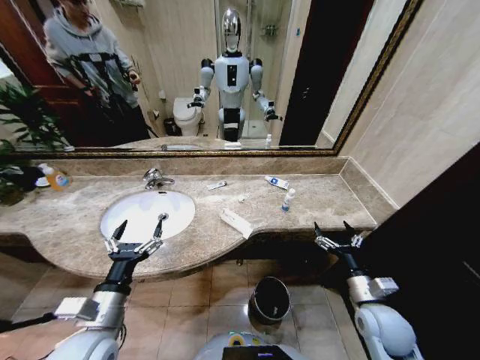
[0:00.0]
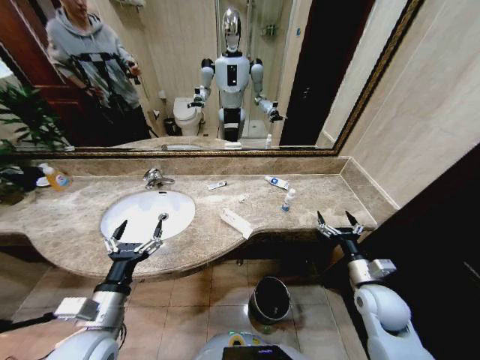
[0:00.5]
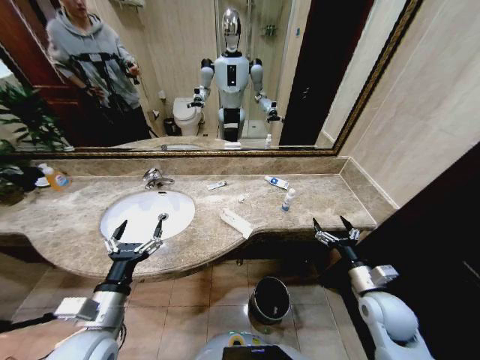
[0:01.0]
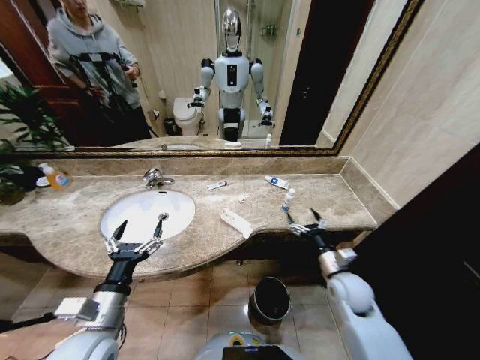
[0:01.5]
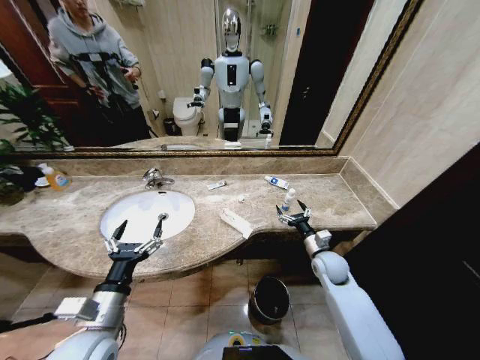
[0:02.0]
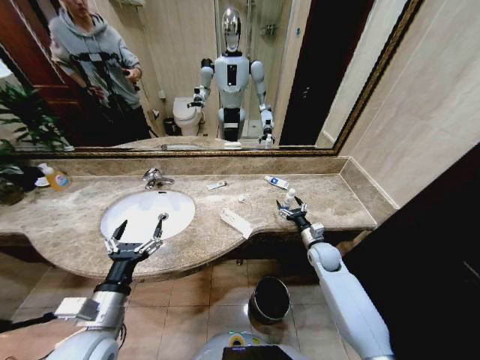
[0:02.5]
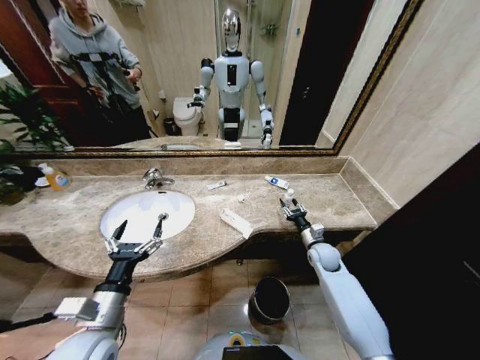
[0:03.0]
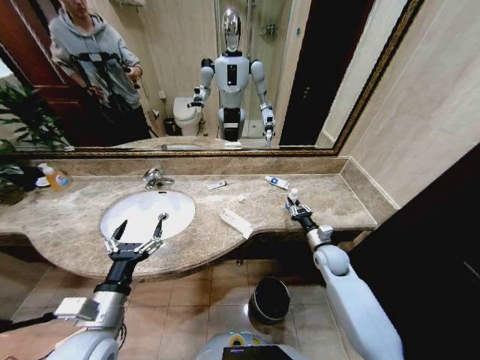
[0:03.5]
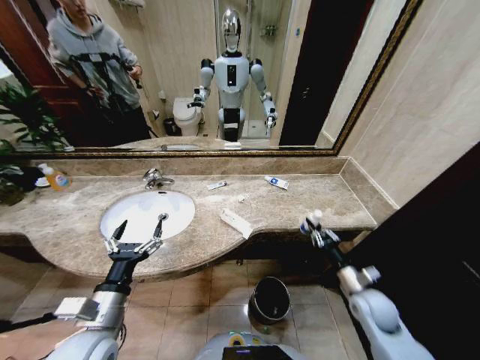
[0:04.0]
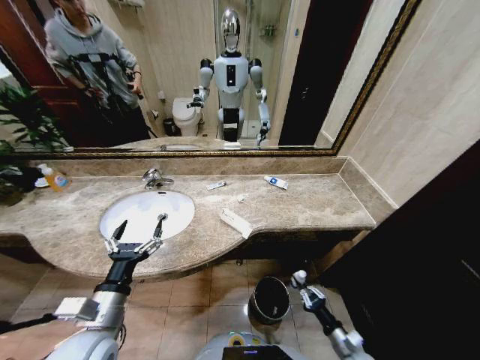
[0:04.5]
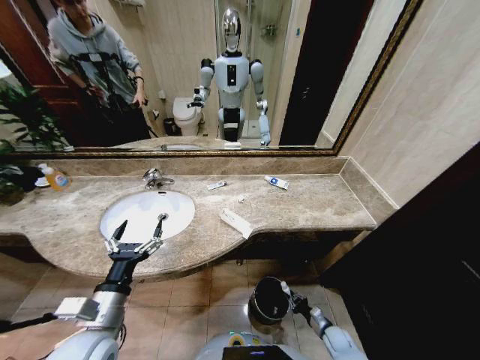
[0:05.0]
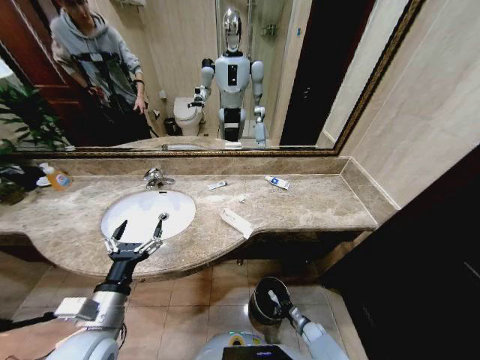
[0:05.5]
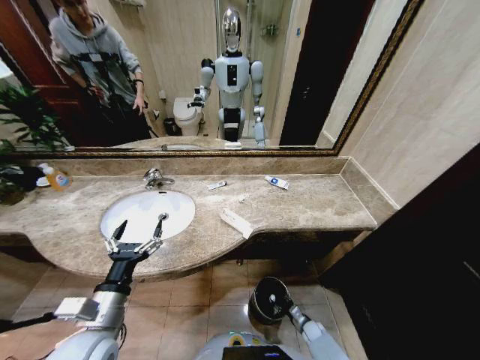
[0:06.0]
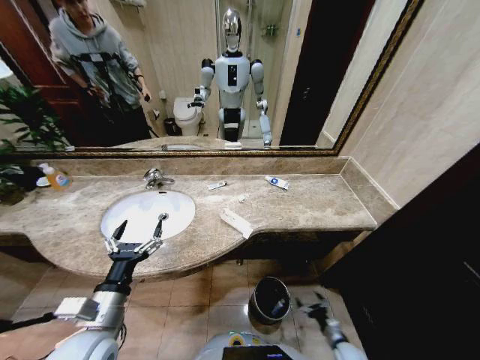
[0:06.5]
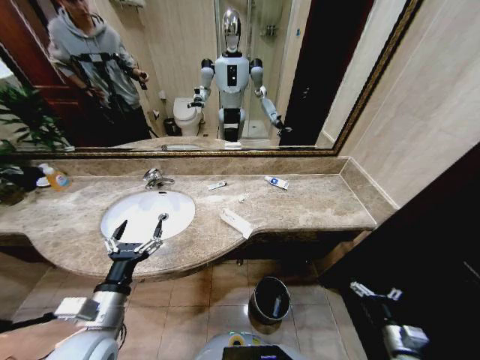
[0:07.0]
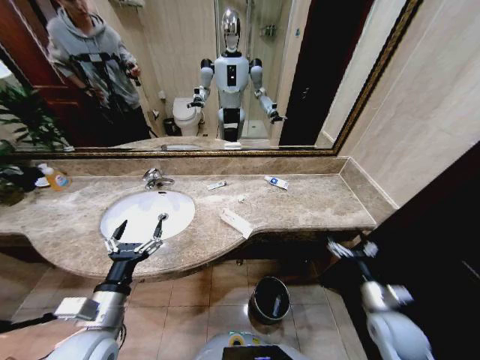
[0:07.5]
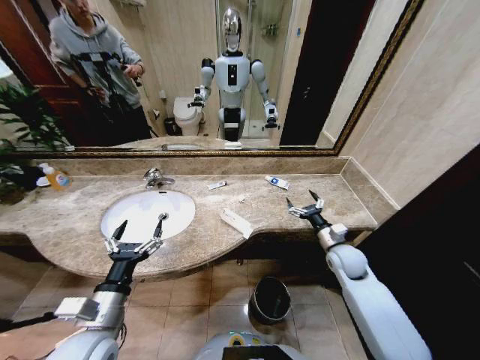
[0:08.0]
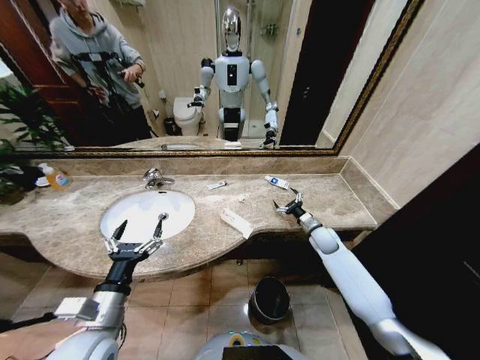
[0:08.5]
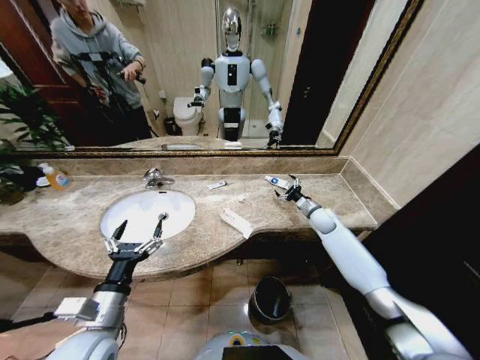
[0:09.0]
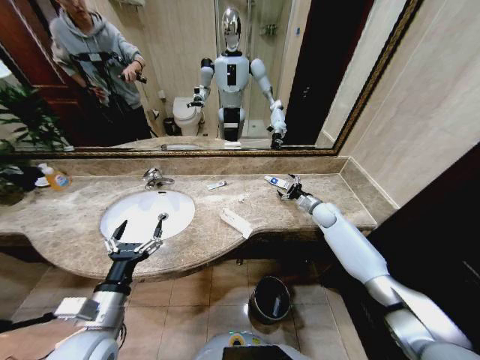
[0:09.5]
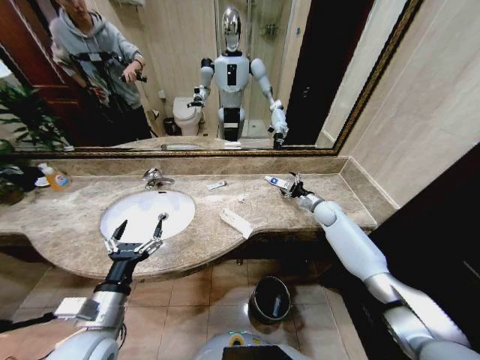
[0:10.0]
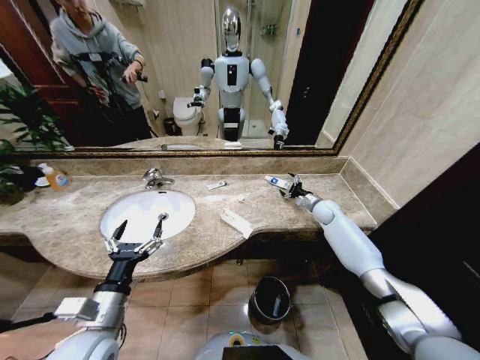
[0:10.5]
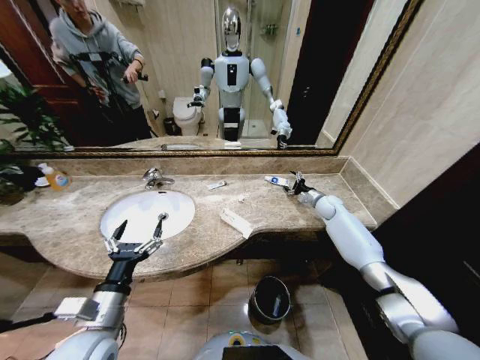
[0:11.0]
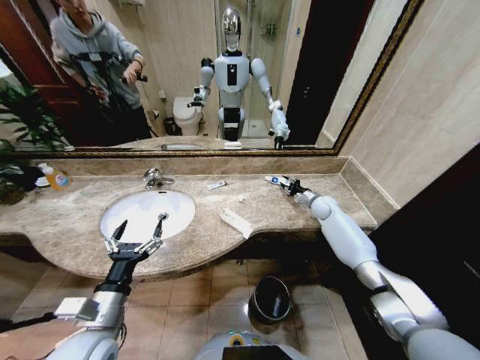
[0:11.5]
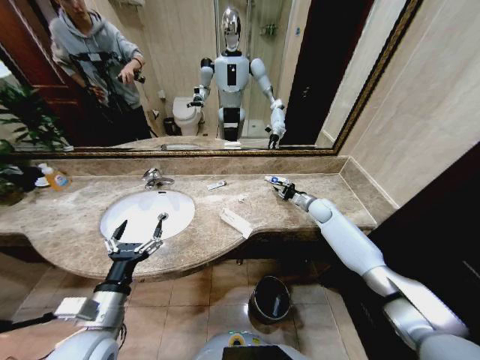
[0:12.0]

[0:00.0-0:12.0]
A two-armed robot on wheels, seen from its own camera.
Task of the whole recording: Pick up the trash from the sink and place it in the trash bin.
0:02.0 to 0:04.0: The right gripper goes about 15 cm backward and to the right, and closes.
0:04.0 to 0:06.0: The right gripper is displaced downward by approximately 35 cm, and opens.
0:06.0 to 0:08.0: The right gripper shifts some 40 cm upward, and opens.
0:08.0 to 0:10.0: The right gripper shifts some 20 cm forward.
0:10.0 to 0:12.0: The right gripper closes up.

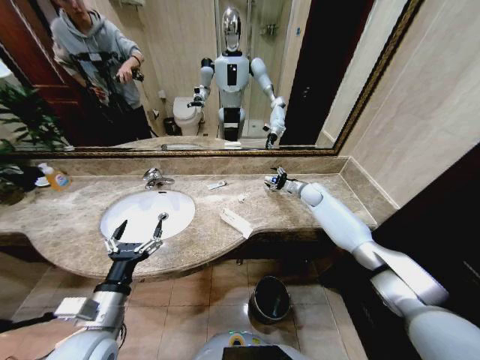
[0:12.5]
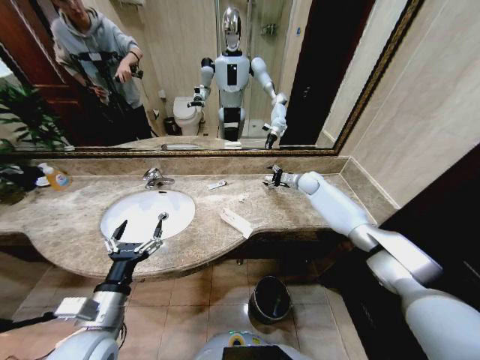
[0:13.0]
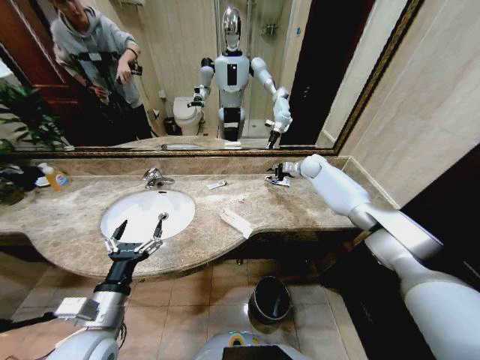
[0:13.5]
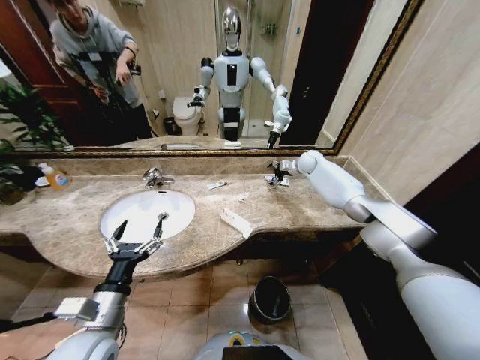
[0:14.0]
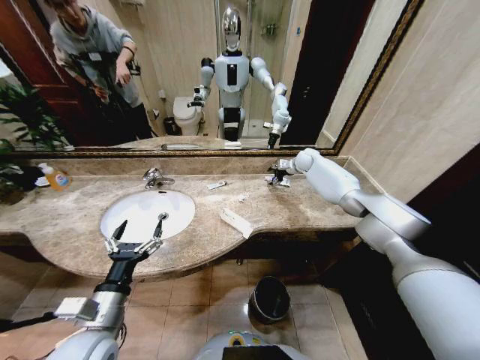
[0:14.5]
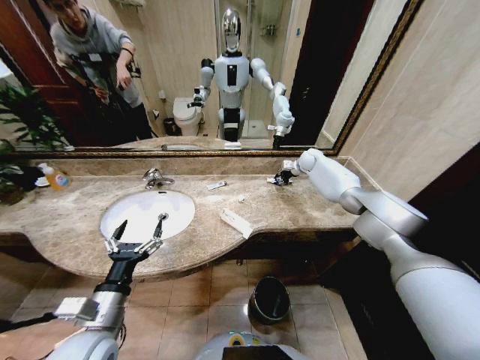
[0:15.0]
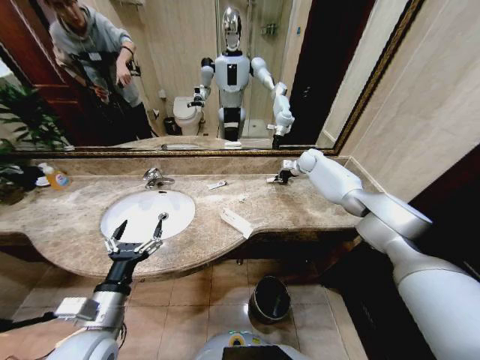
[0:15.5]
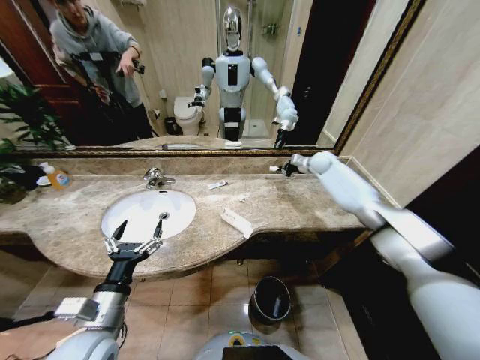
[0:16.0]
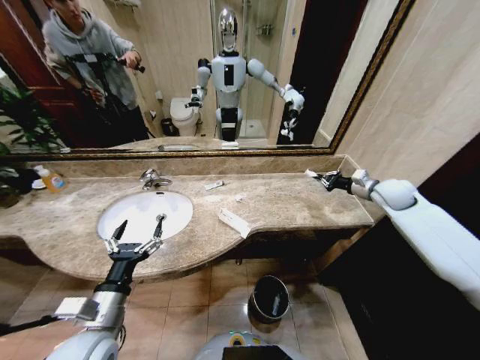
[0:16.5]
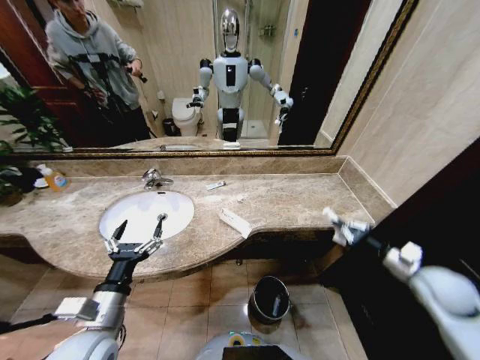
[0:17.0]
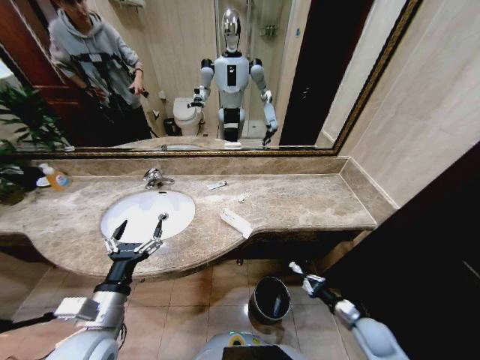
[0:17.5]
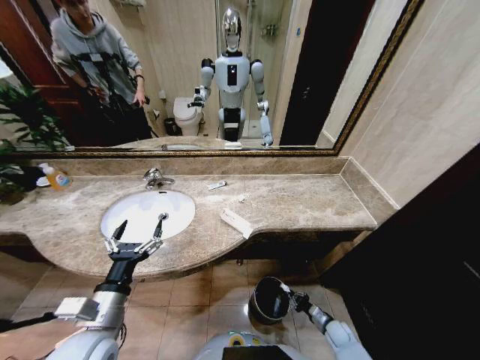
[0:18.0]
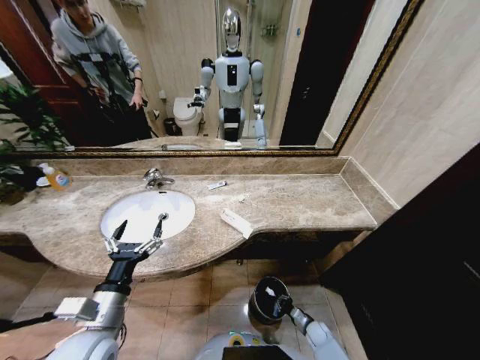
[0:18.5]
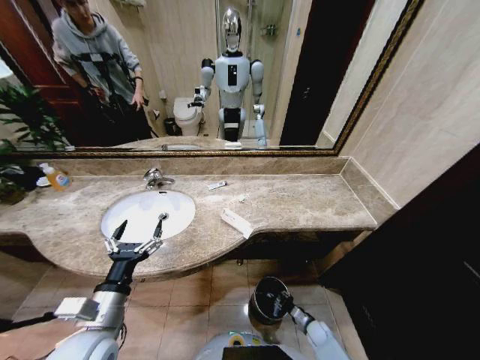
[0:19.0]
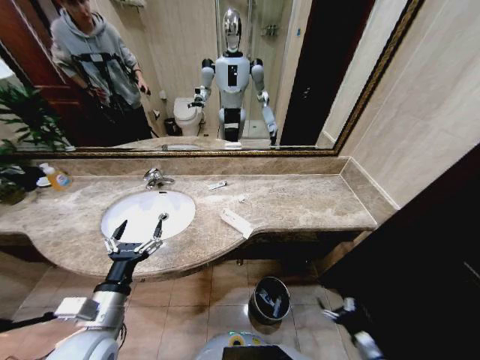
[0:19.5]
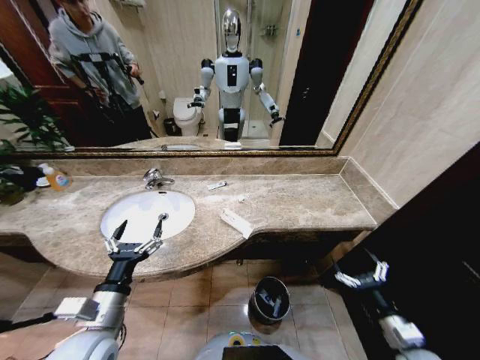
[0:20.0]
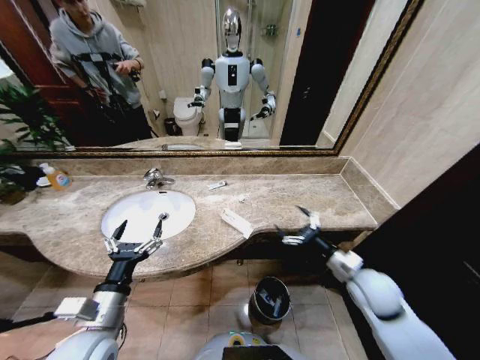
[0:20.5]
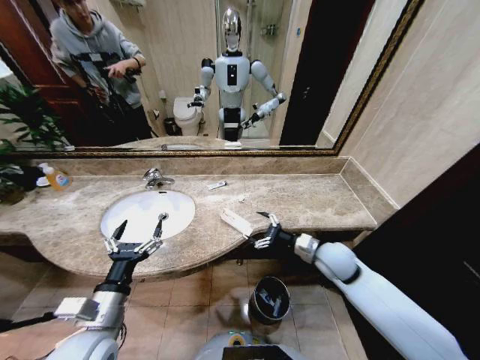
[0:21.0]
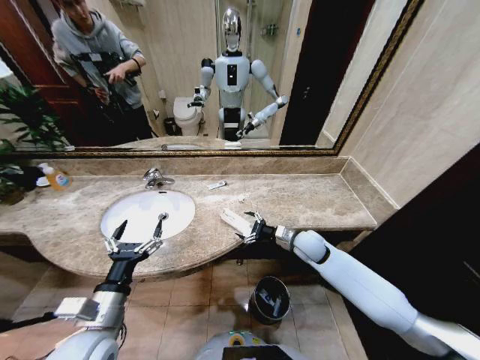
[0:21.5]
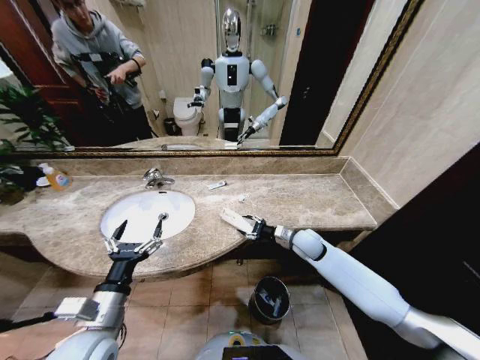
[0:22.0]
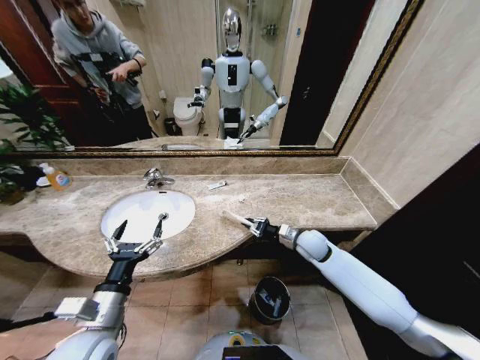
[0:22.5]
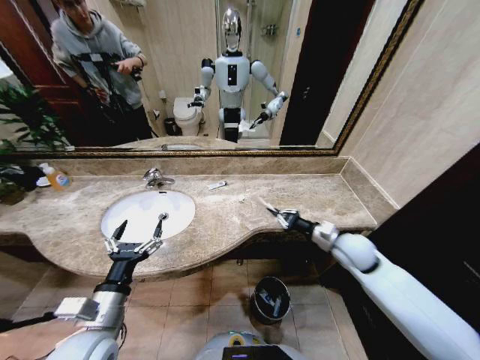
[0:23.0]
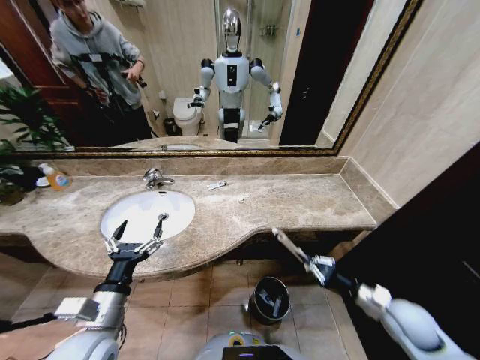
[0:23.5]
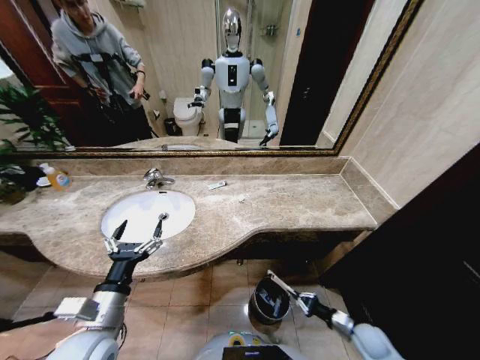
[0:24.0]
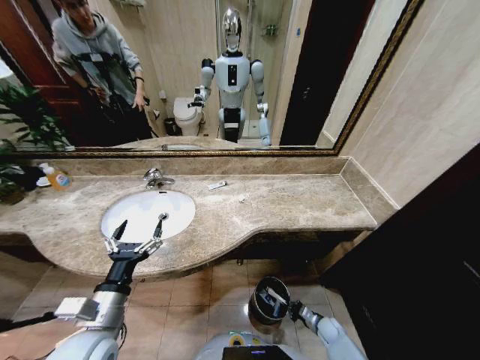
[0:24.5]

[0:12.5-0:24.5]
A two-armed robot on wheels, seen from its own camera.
Task of the whole recording: Pick up the trash from the sink and place it in the trash bin.
0:12.5 to 0:14.5: The right gripper is displaced upward and forward by about 15 cm, and closes and opens again.
0:14.5 to 0:16.5: The right gripper shifts some 30 cm backward and to the right, and closes up.
0:16.5 to 0:18.5: The right gripper shifts some 60 cm downward and backward.
0:18.5 to 0:20.5: The right gripper shifts some 40 cm upward, and opens up.
0:20.5 to 0:22.5: The right gripper shifts approximately 15 cm forward and to the left, and closes its fingers.
0:22.5 to 0:24.5: The right gripper travels downward and backward by about 40 cm.

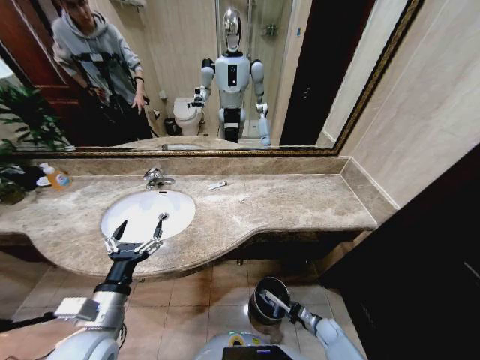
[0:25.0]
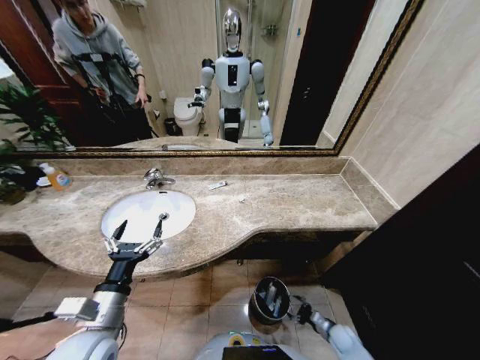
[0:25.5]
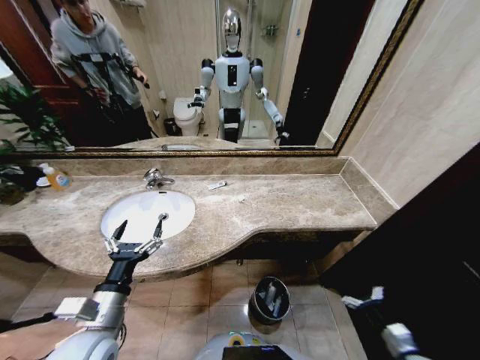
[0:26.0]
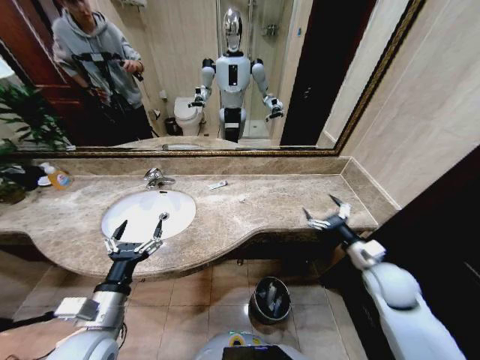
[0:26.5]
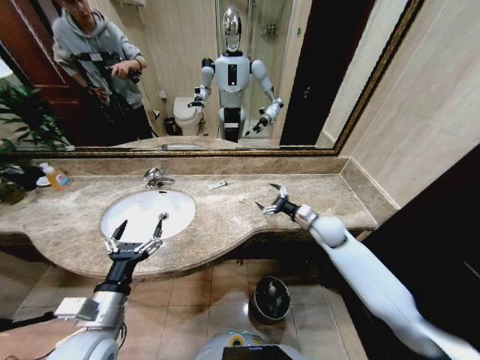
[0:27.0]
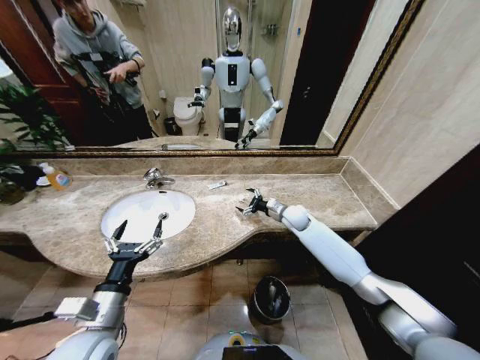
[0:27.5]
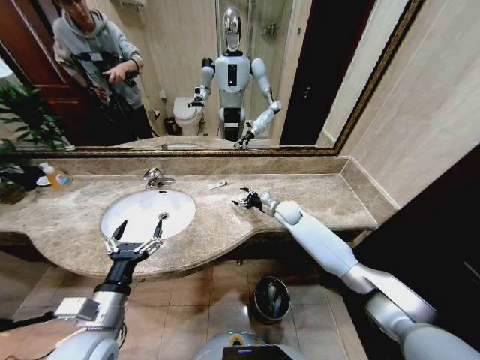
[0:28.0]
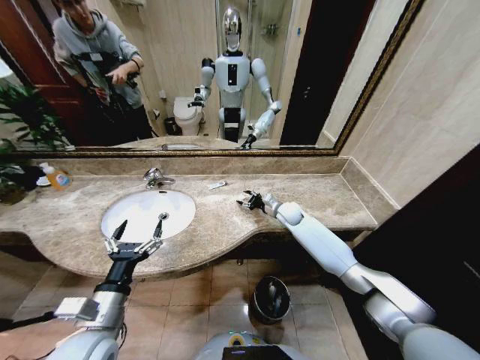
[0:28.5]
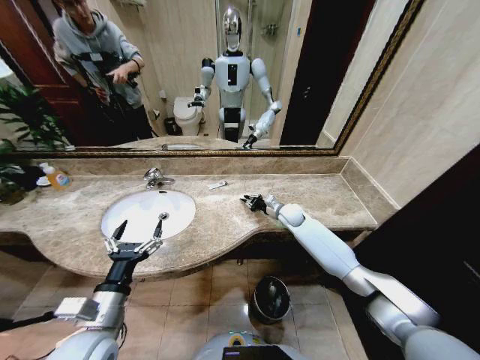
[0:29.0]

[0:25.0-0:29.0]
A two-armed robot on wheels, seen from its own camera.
Task of the whole recording: Pick up the trash from the sink and place it in the trash bin.
0:25.0 to 0:27.0: The right gripper heads upward and forward, covering roughly 40 cm, and opens.
0:27.0 to 0:29.0: The right gripper moves forward and to the left, about 15 cm, and closes up.
